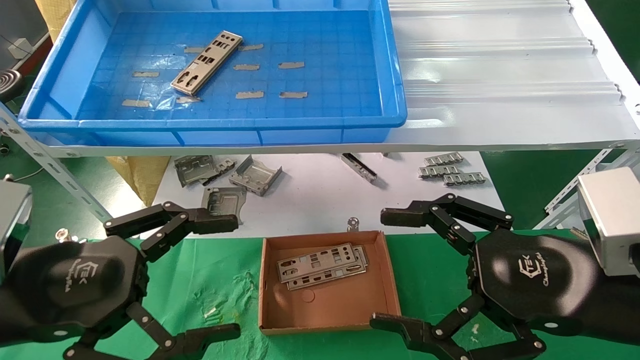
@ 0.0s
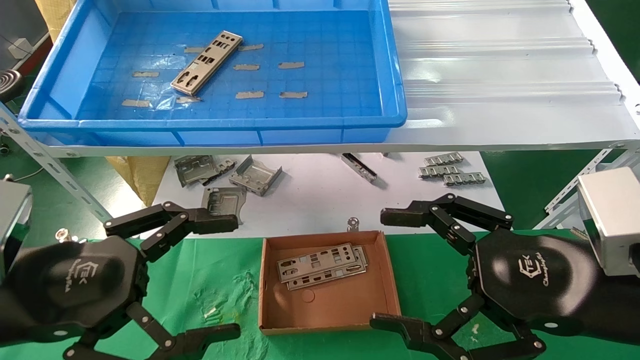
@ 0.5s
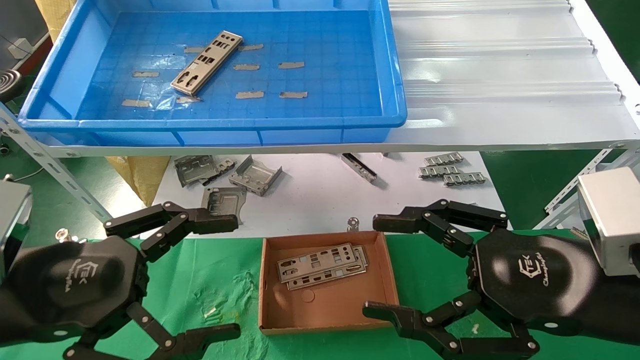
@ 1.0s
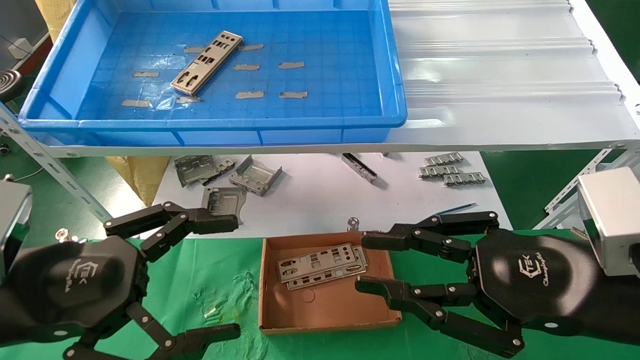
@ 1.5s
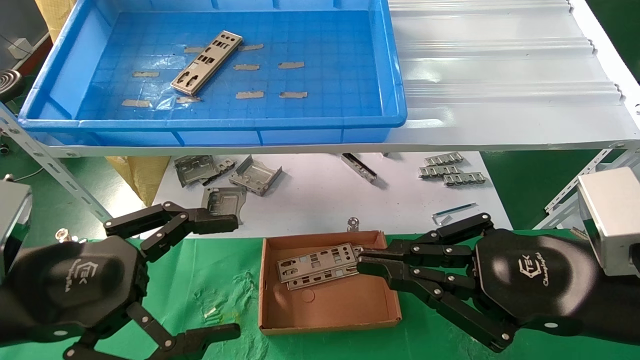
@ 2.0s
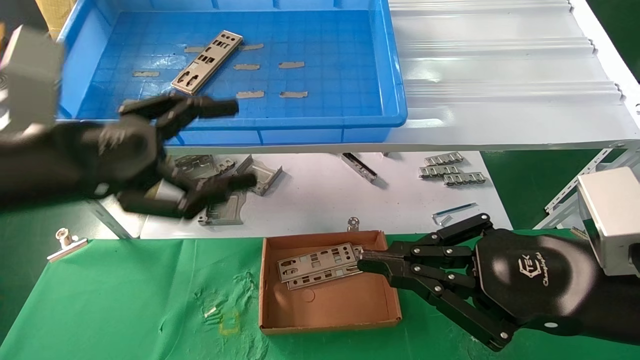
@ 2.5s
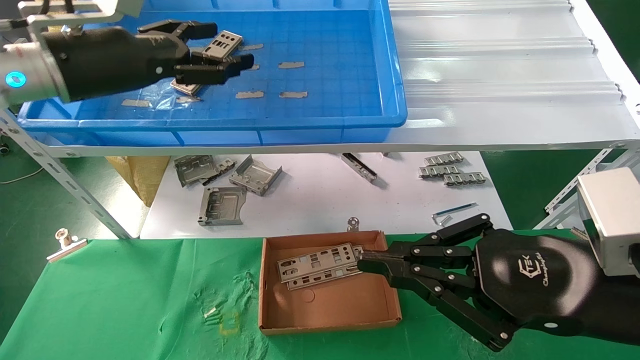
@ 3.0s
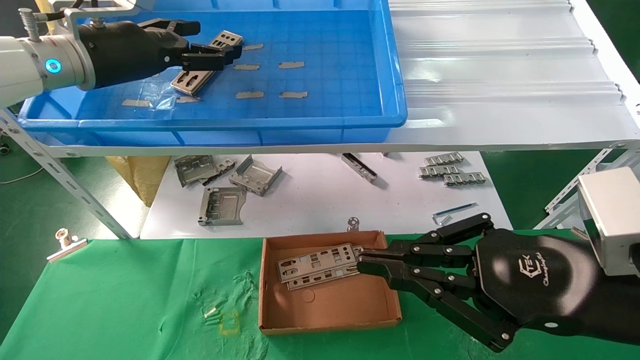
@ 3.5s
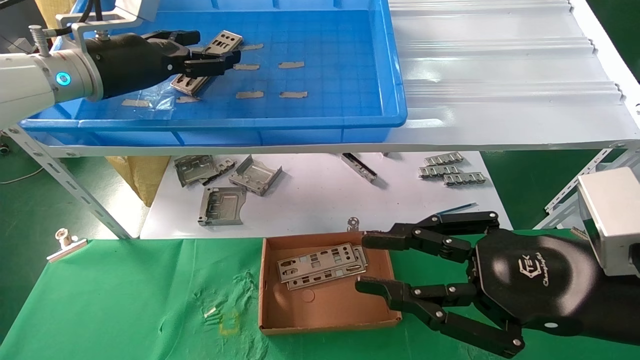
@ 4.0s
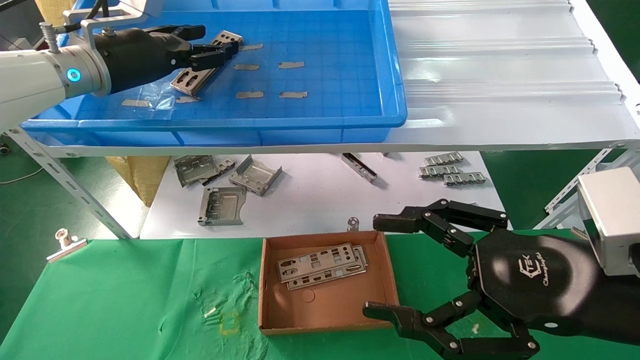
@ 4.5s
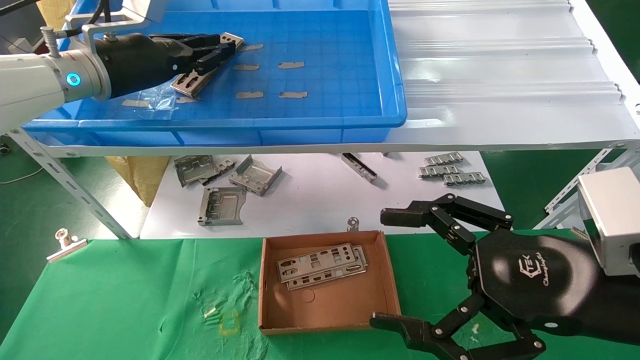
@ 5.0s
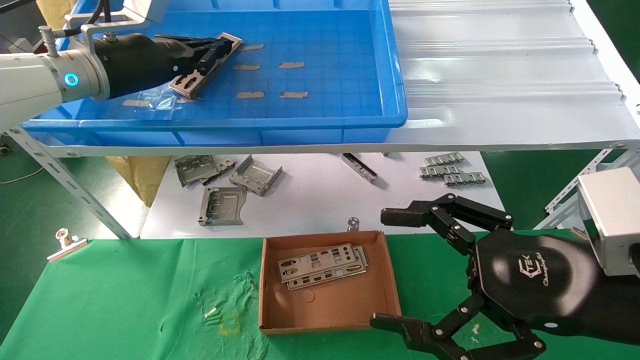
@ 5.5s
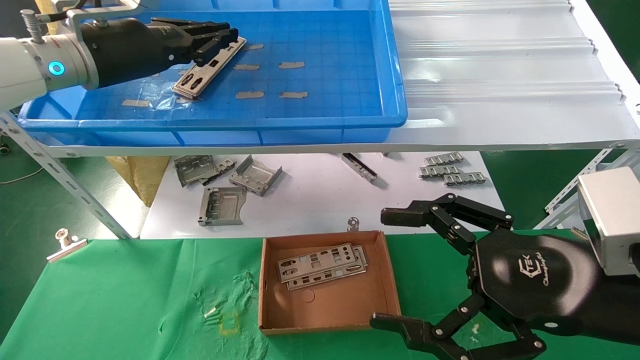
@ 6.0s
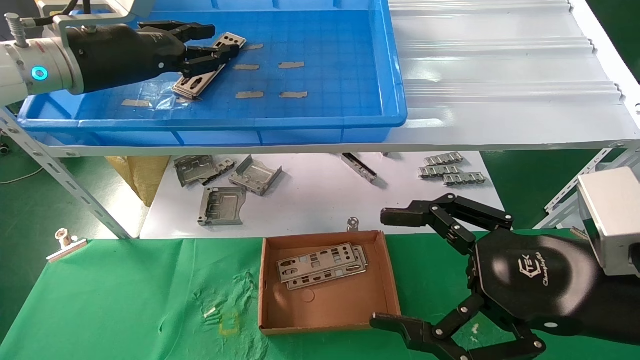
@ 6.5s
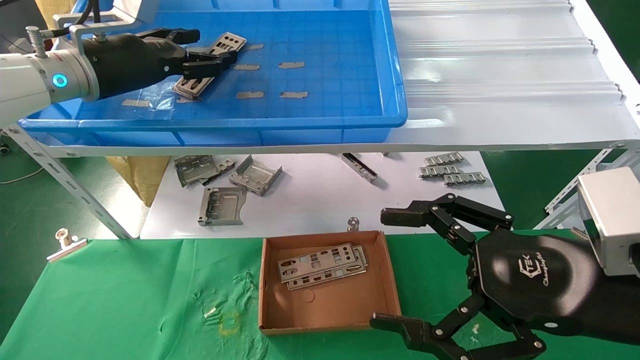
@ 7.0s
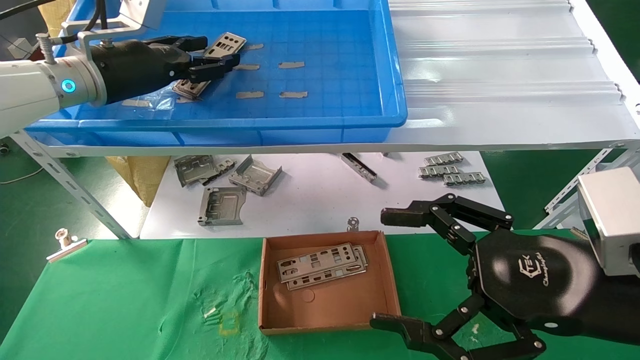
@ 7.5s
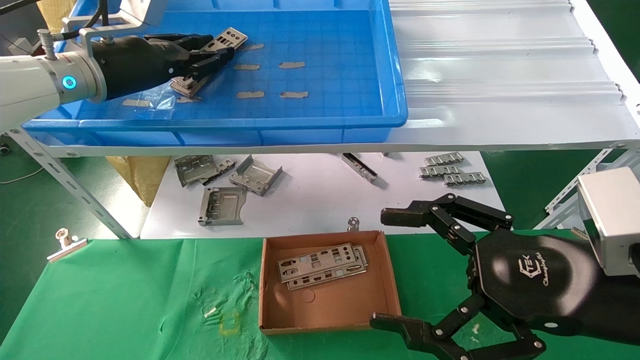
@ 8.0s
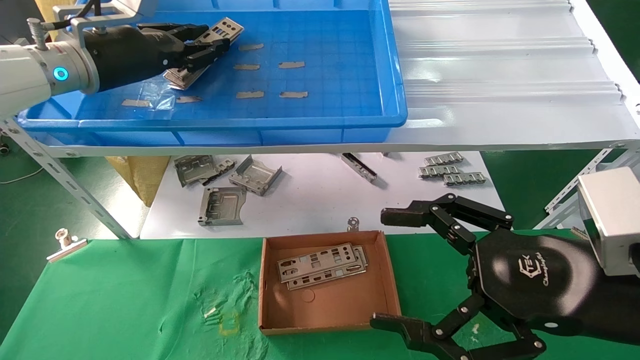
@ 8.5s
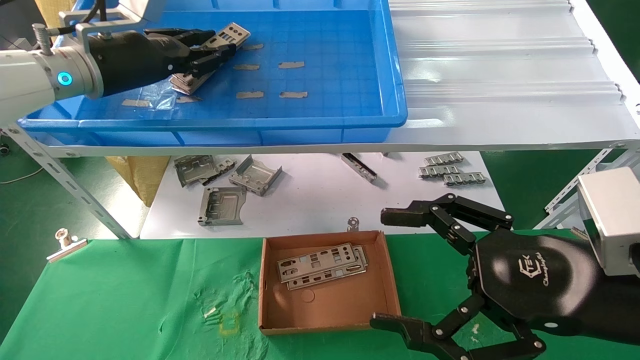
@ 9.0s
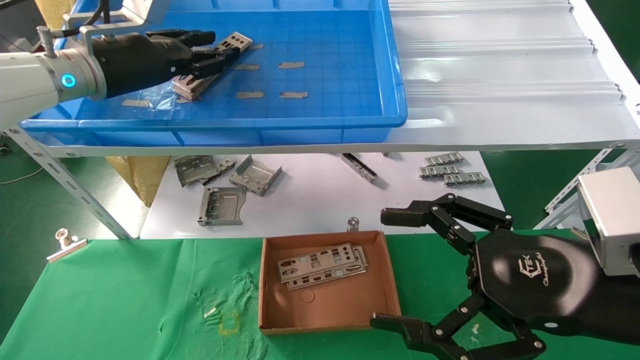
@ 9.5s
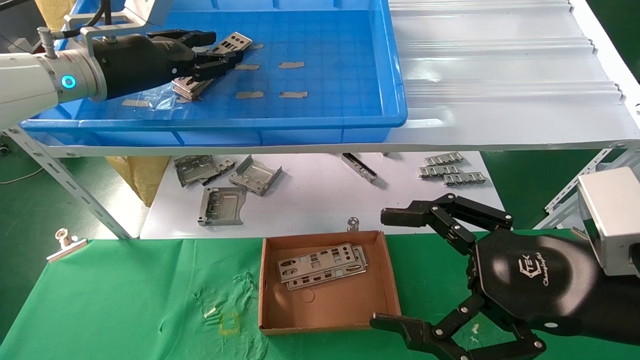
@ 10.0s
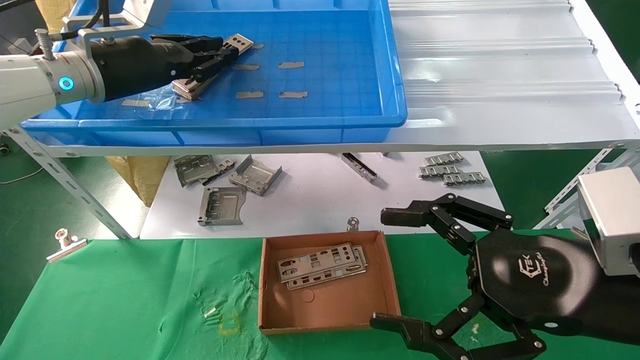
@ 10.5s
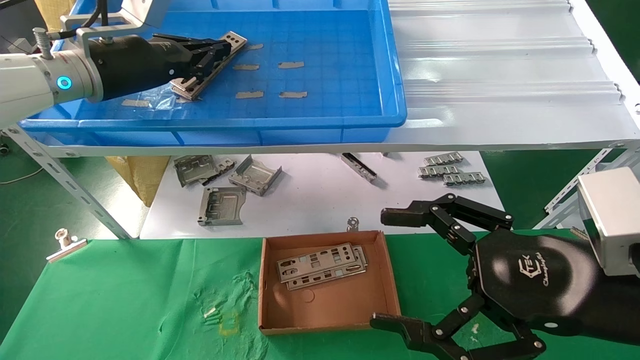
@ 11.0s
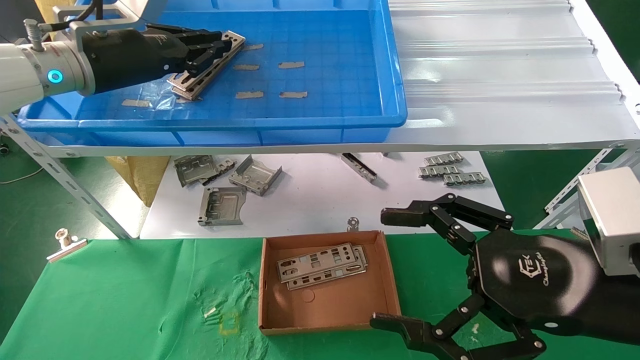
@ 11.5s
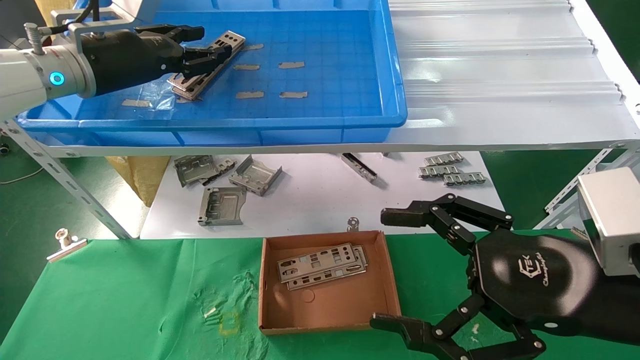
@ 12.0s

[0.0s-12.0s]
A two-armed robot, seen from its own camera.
Task of the whole recording: pick up the parts on the tray and put them in the cardboard box.
0.0s to 2.0s: The right gripper closes.
2.0s to 4.0s: The left gripper heads forward and upward, covering some 30 cm.
4.0s to 6.0s: The right gripper opens its fingers. Meanwhile the left gripper closes.
6.0s to 8.0s: The left gripper opens.
8.0s to 10.0s: Neither gripper changes place.
10.0s to 12.0s: Both grippers stay about where they are.

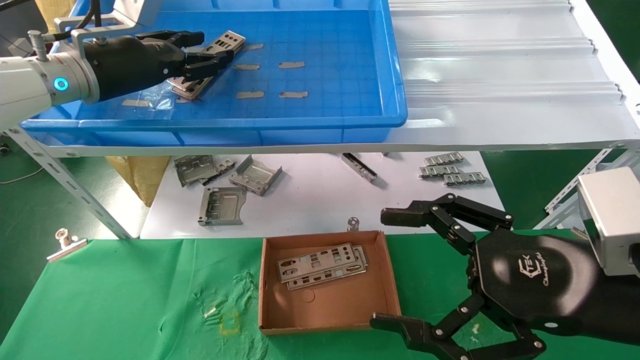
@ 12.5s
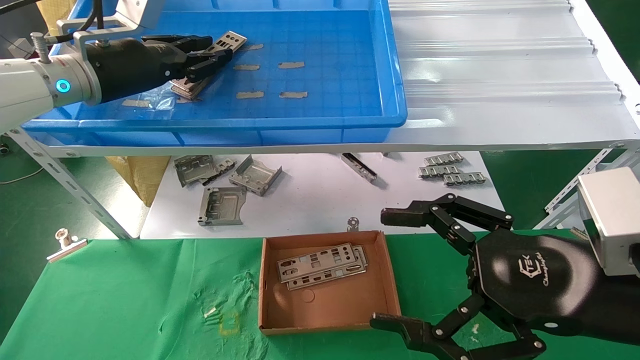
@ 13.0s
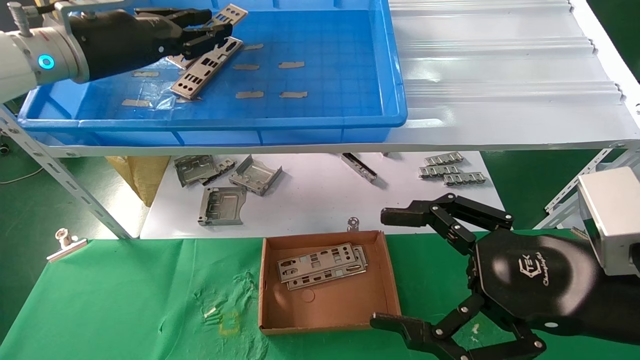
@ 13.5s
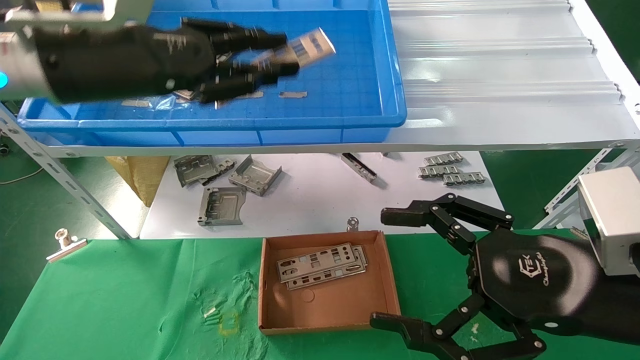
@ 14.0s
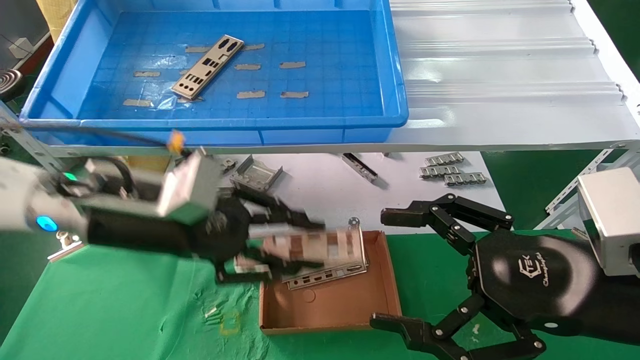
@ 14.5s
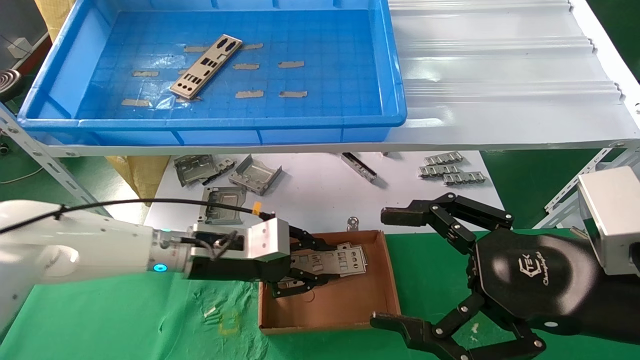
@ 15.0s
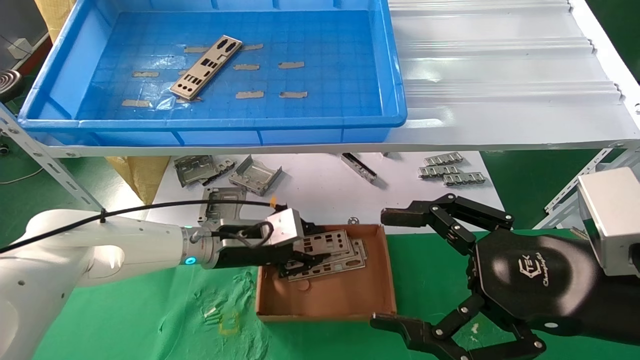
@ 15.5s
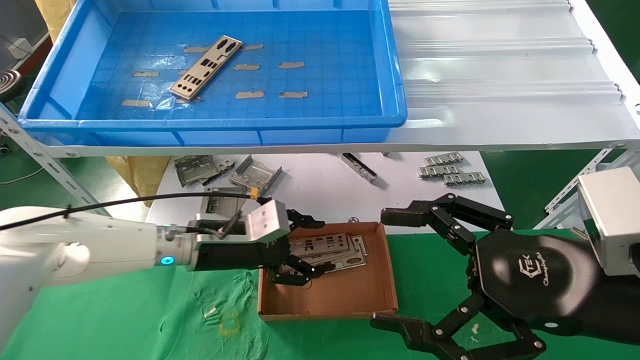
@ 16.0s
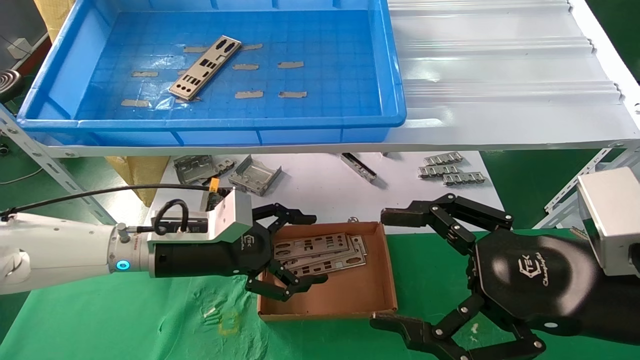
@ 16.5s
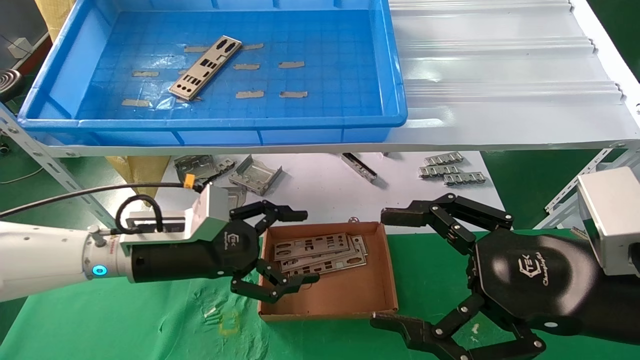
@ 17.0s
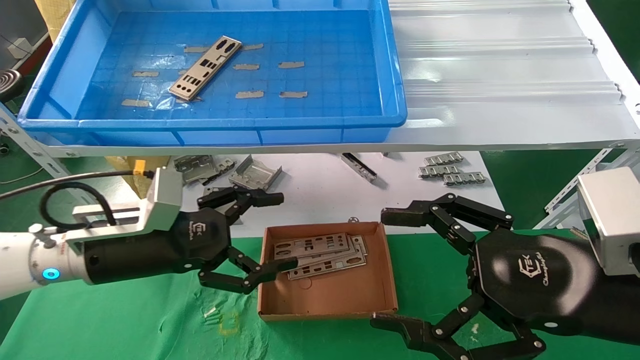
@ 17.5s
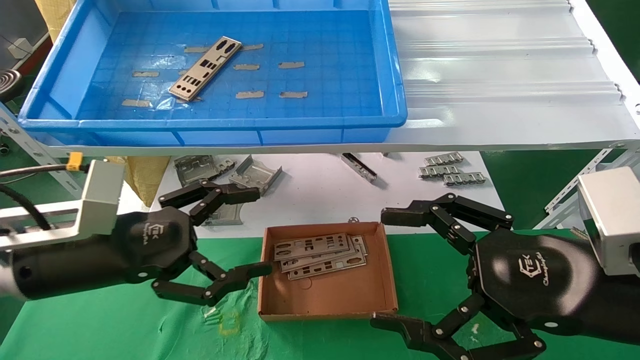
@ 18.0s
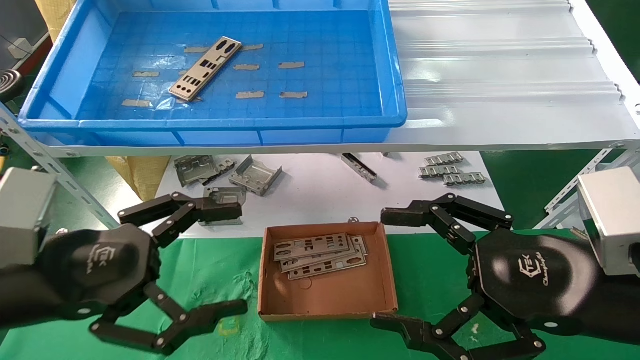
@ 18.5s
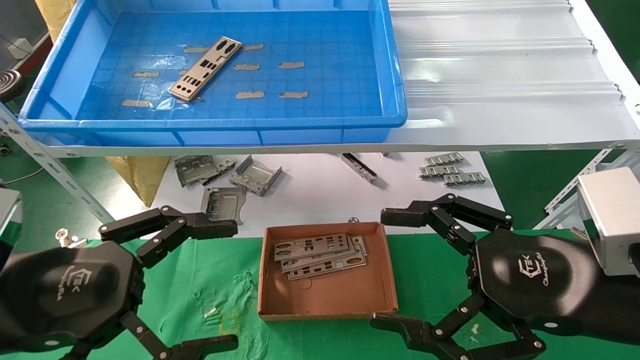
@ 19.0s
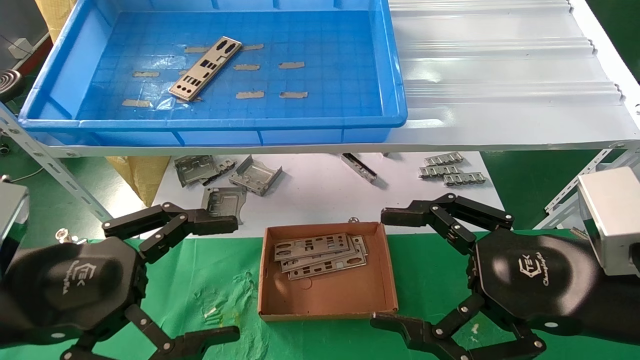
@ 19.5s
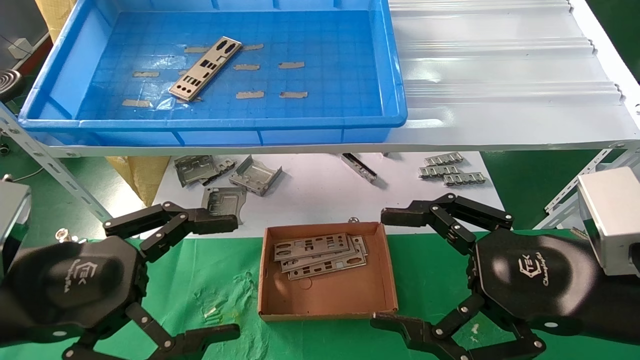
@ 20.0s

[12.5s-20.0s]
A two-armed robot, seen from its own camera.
Task of the whole recording: pick up the parts on the tray and put them in the cardboard box.
Step, 13.5s to 17.5s: Place the IO bracket into the ingredient slot.
12.5s to 14.5s: The left gripper shifts roughly 20 cm downward, backward and to the right.
14.5s to 16.5s: The left gripper moves downward, some 10 cm, and opens up.
16.5s to 18.0s: The left gripper is displaced backward and to the left by some 10 cm.
18.0s to 20.0s: The left gripper goes approximately 10 cm backward.
